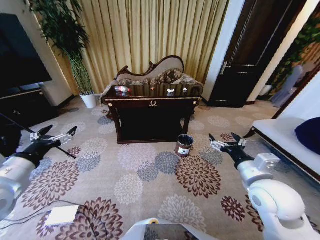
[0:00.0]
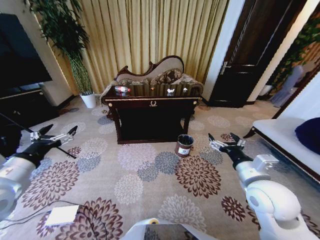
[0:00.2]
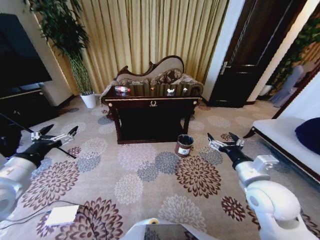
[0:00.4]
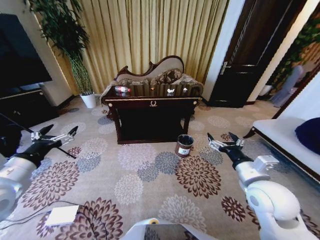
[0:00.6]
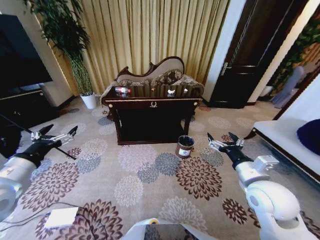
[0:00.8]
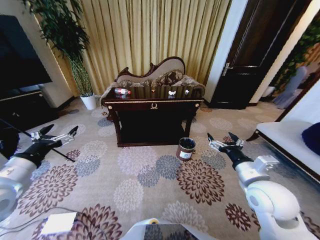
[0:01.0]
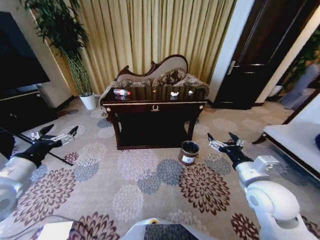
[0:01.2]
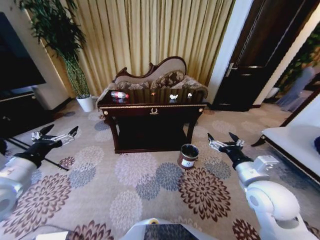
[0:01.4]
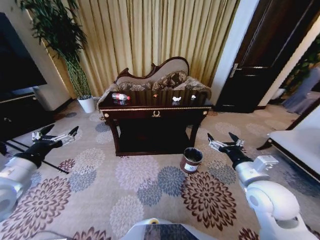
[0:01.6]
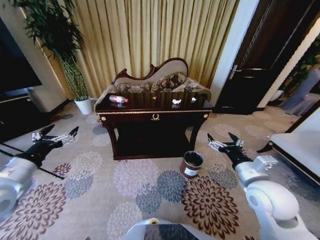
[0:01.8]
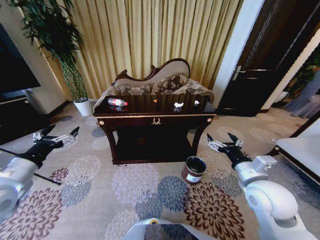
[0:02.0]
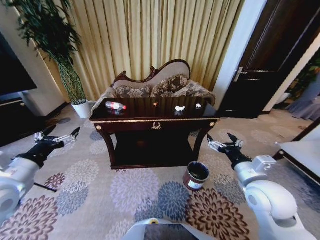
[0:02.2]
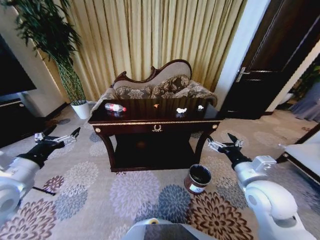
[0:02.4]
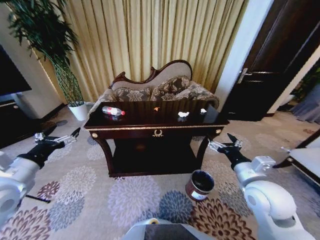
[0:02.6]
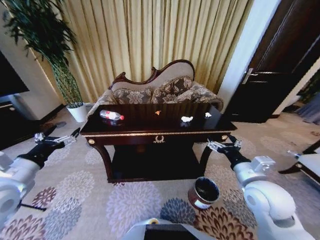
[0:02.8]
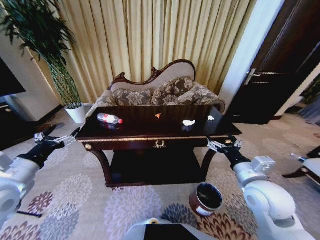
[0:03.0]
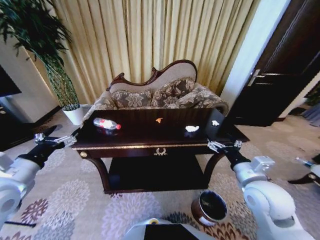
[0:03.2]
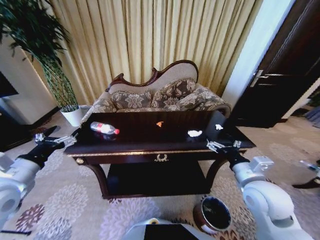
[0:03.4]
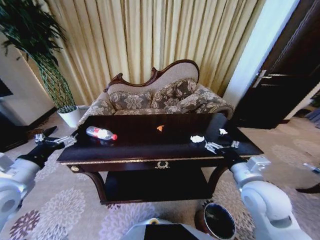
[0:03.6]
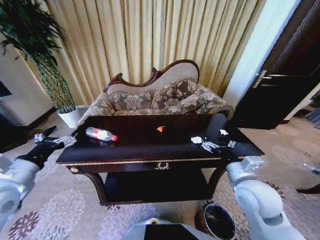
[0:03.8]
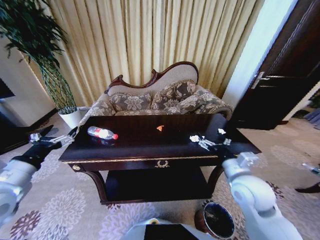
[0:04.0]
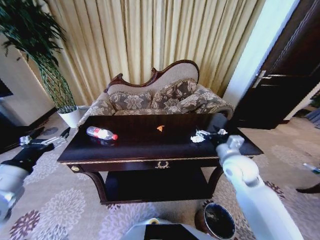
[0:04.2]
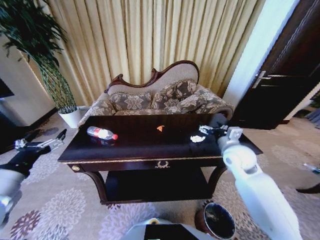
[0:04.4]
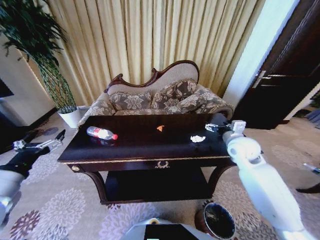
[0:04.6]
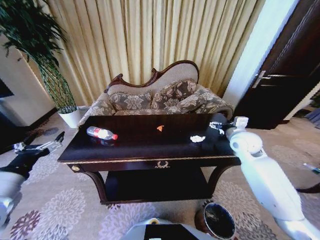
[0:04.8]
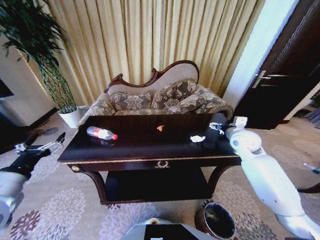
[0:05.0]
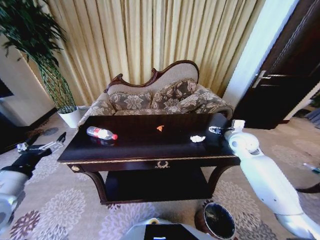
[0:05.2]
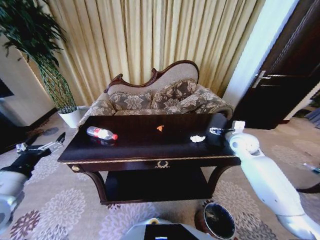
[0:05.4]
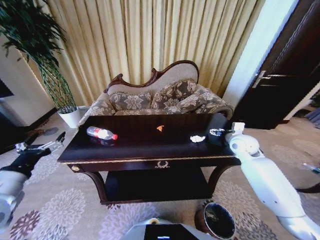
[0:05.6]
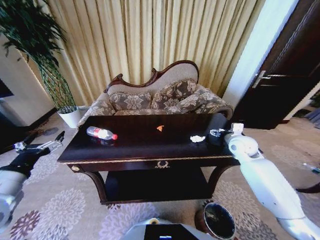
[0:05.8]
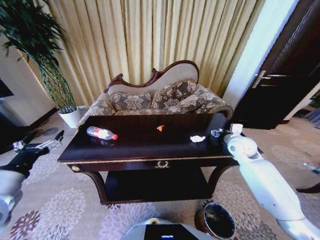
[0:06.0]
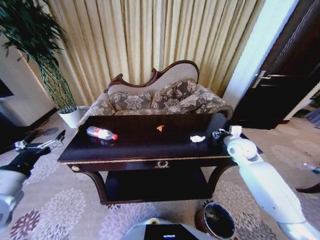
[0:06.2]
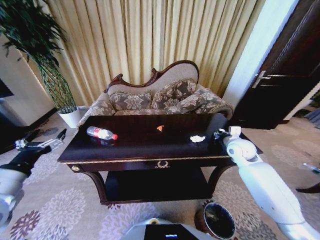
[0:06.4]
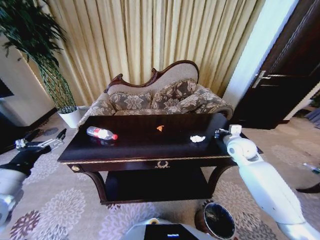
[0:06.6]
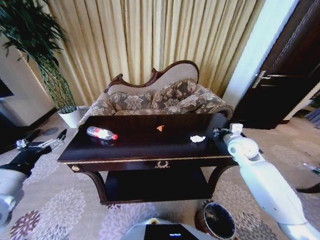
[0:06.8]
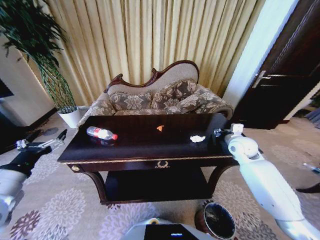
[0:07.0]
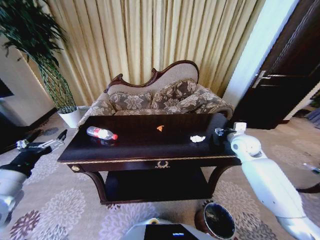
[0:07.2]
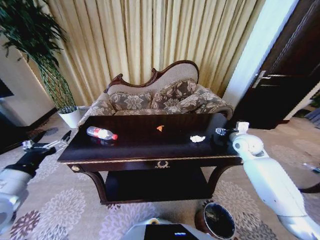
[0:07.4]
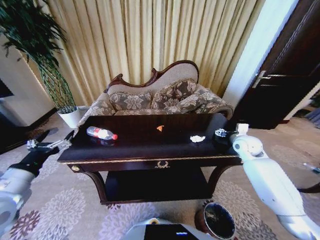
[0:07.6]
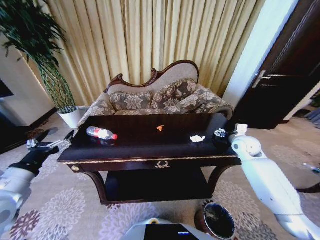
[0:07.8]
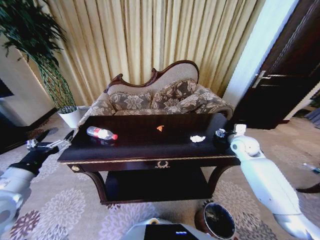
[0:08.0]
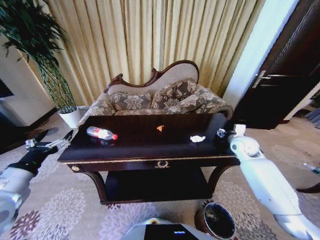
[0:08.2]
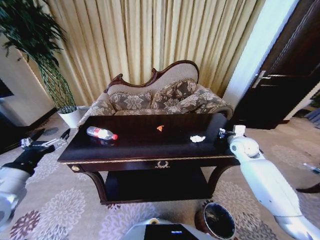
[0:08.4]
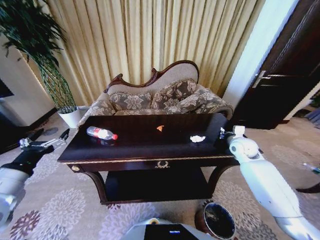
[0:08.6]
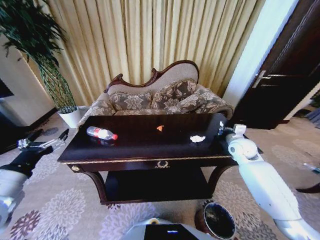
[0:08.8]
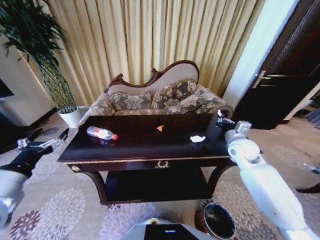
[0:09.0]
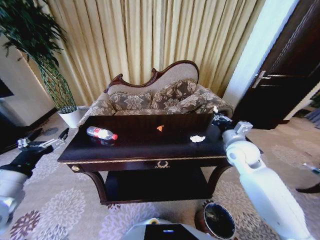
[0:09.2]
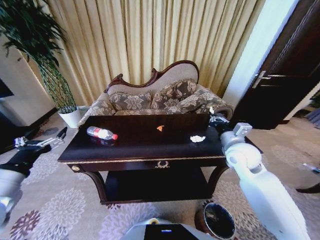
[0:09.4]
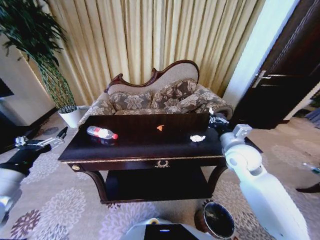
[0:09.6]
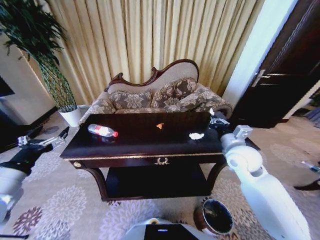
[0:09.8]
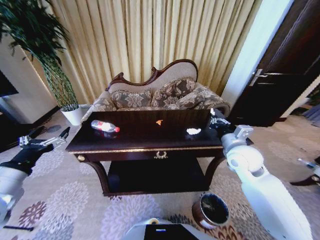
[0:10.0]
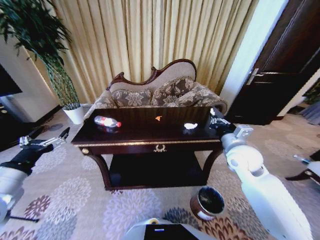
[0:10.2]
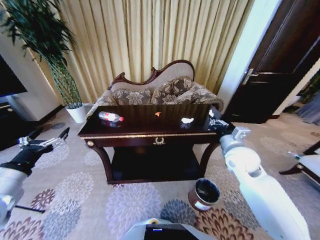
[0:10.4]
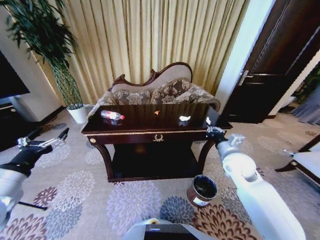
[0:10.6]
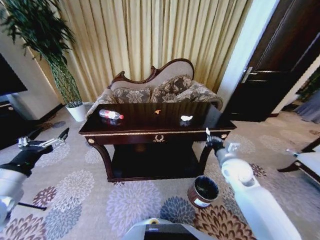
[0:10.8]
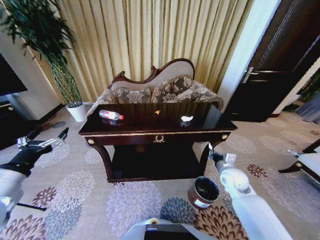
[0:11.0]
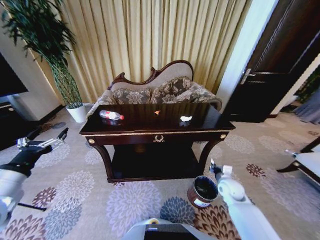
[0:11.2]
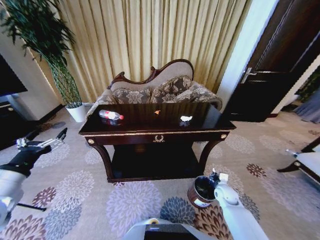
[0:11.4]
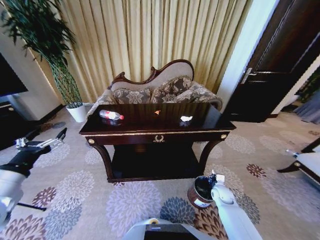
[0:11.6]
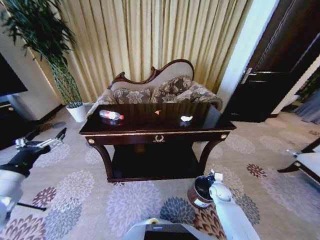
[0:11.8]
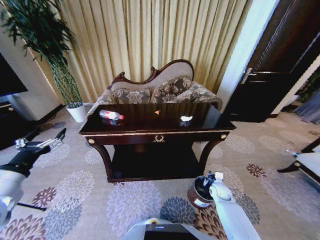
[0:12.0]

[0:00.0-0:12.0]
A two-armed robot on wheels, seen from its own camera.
Task of the whole recording: Move to the front of the table and place the trash on the table into the trash bin.
0:03.0 to 0:04.4: The right gripper shifts about 15 cm forward.
0:04.4 to 0:06.0: The right gripper moves to the right and forward, approximately 10 cm.
0:06.0 to 0:07.6: The right gripper closes, then reopens.
0:07.6 to 0:09.0: The right gripper shifts roughly 5 cm to the left, and closes up.
0:09.0 to 0:10.4: The right gripper travels backward by about 5 cm.
0:10.4 to 0:12.0: The right gripper is displaced downward by roughly 30 cm, and opens.

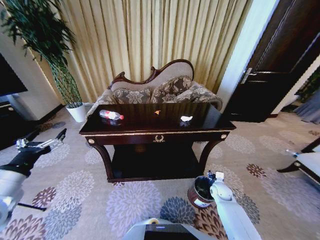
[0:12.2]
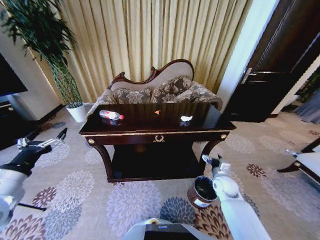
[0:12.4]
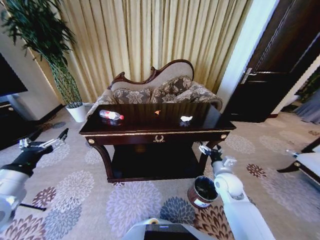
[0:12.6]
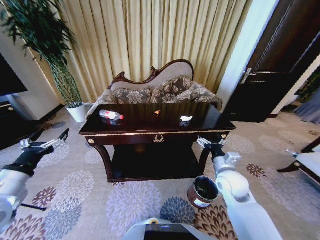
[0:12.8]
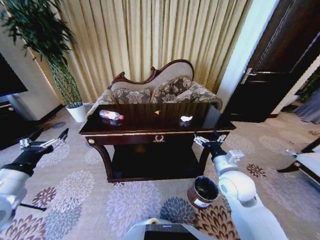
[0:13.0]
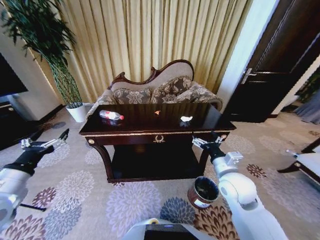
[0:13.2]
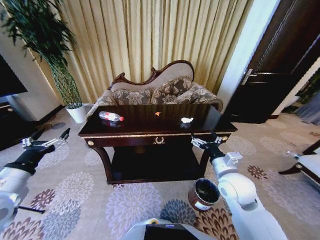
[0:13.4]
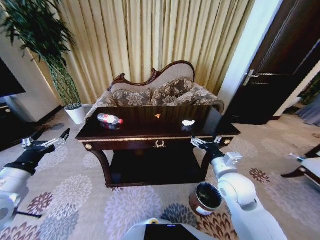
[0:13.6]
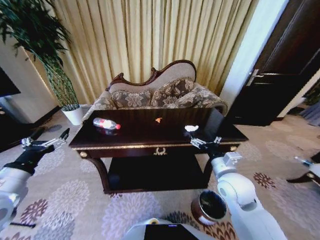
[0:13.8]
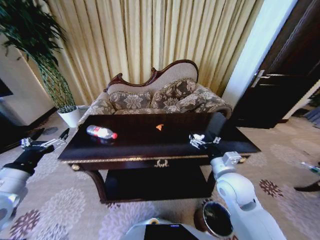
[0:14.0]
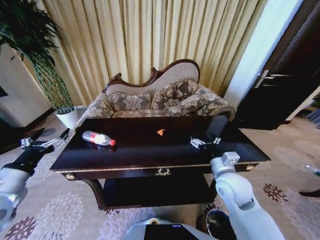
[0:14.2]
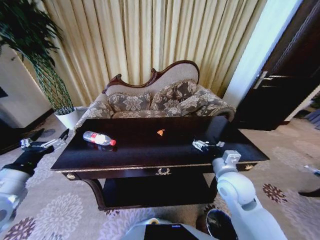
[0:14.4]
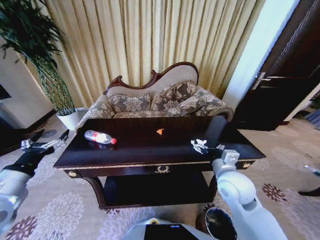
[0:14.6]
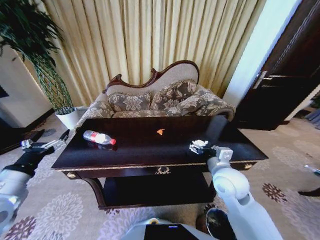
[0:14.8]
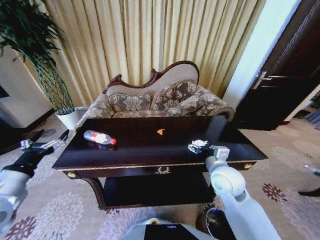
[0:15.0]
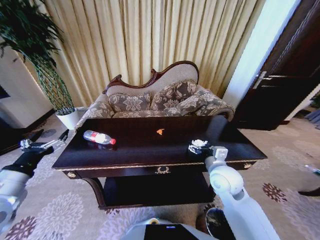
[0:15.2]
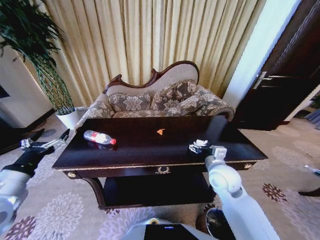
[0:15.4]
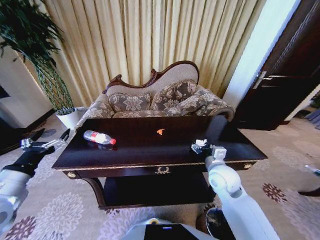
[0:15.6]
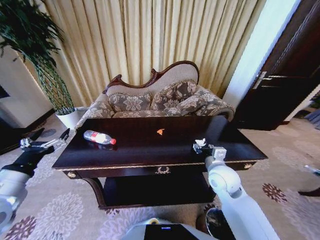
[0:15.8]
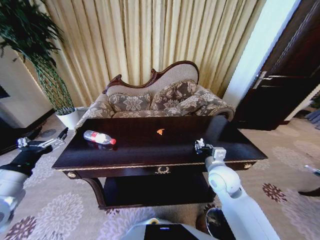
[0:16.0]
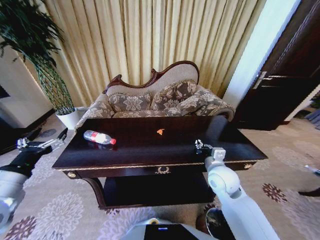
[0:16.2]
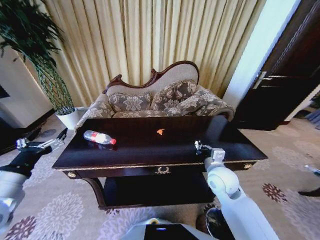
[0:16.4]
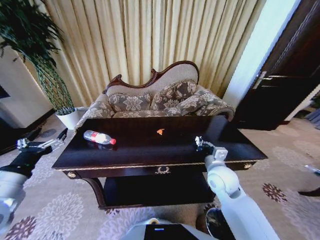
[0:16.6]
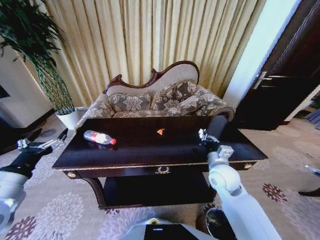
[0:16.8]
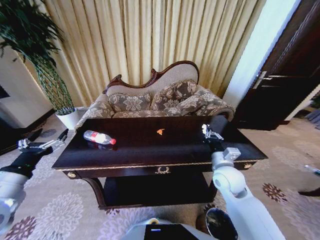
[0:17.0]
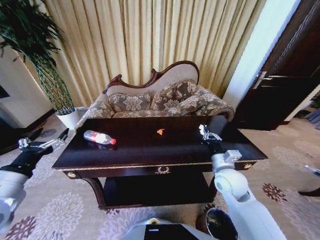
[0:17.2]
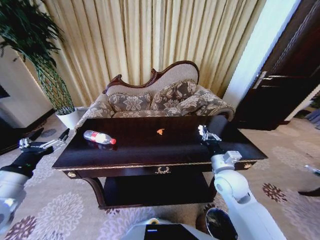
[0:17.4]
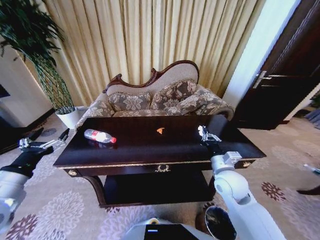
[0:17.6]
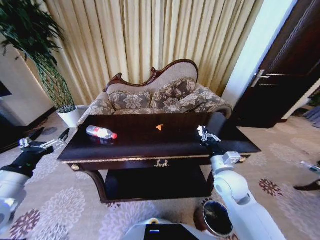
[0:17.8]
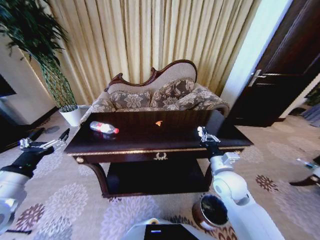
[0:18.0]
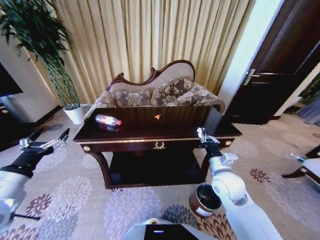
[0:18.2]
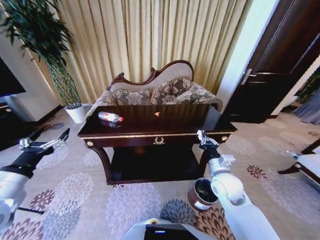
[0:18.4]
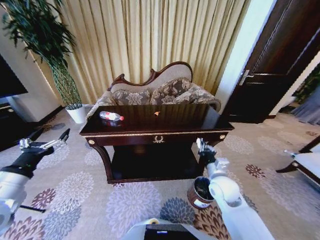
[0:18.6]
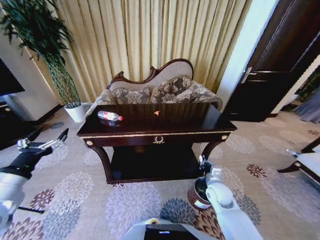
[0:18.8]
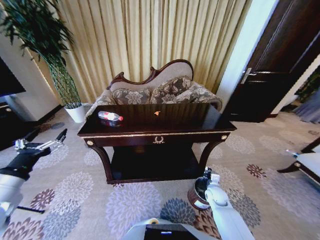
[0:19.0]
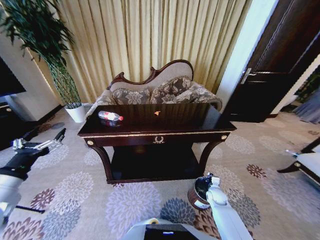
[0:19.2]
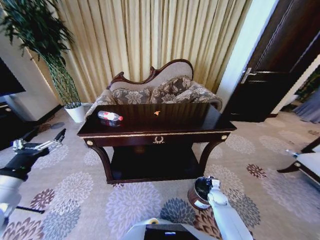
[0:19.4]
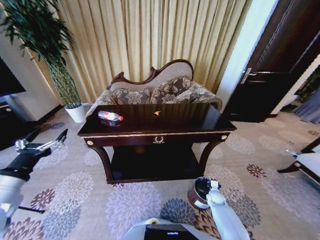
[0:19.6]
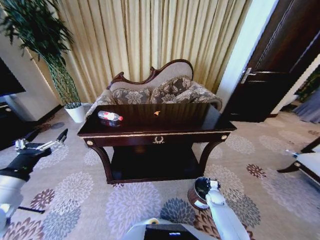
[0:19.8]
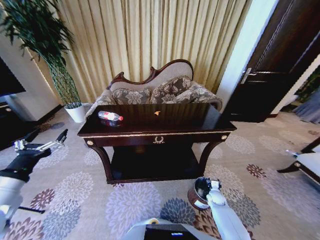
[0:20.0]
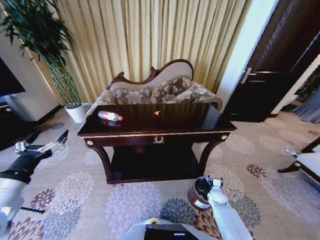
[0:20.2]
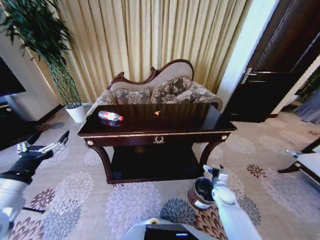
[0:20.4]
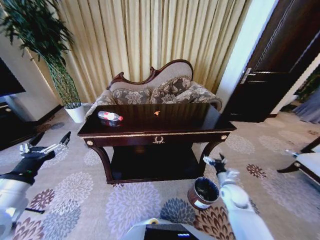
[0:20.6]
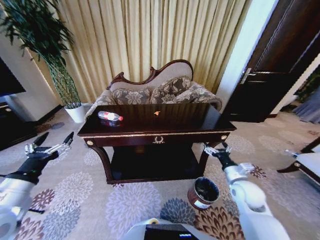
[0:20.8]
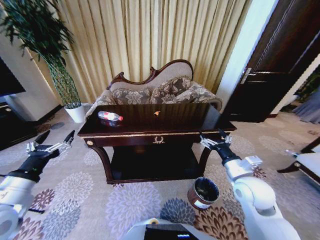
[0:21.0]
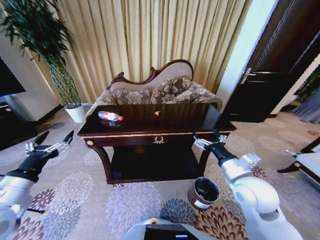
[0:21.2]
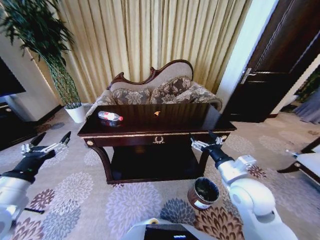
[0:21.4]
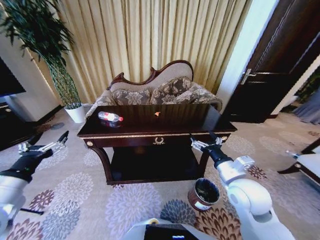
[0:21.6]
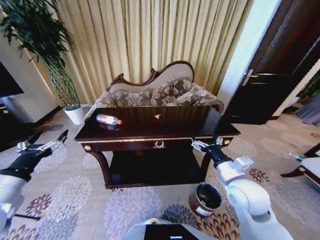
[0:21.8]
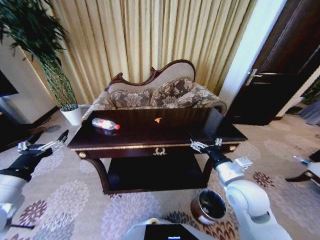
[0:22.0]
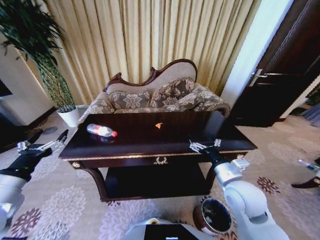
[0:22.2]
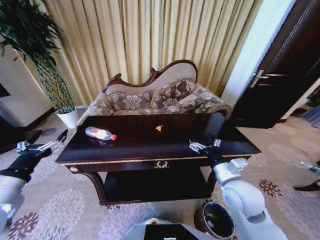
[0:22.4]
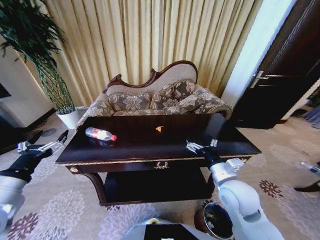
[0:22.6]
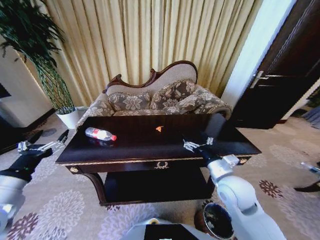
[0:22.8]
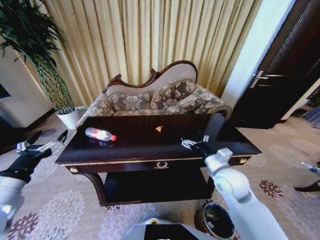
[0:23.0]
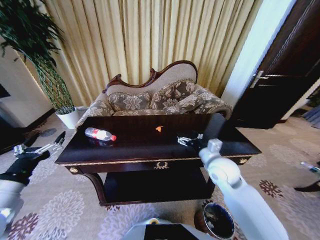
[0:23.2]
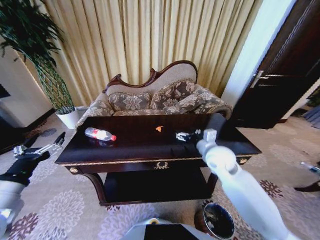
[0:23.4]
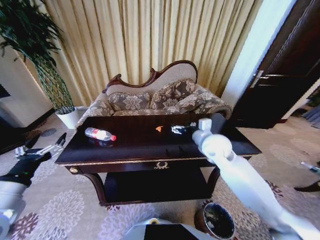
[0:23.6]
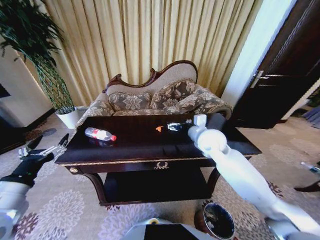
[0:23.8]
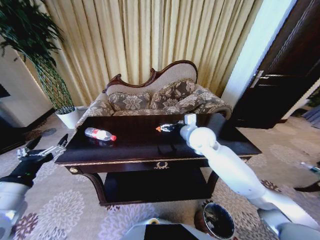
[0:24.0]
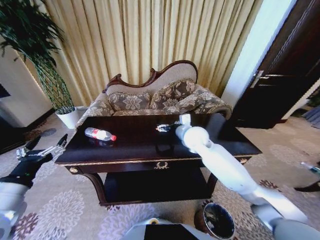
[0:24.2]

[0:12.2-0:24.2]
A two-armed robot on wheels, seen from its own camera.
Task of the whole recording: Move to the front of the table and place the trash on the table into the trash bin.
0:12.2 to 0:13.8: The right gripper heads upward and to the left, covering roughly 30 cm, and opens.
0:15.2 to 0:16.6: The right gripper closes up.
0:18.2 to 0:19.8: The right gripper moves downward, roughly 35 cm.
0:19.8 to 0:21.2: The right gripper moves upward, approximately 40 cm, and opens its fingers.
0:22.6 to 0:24.2: The right gripper is displaced forward and to the left by about 25 cm.
